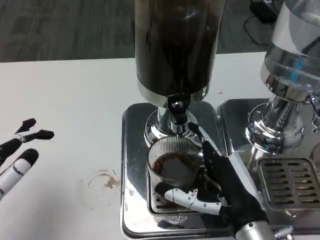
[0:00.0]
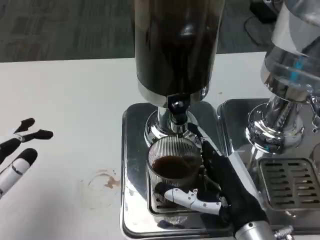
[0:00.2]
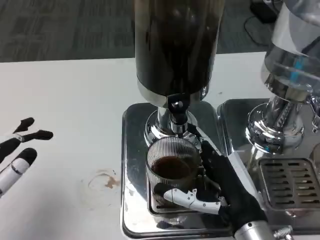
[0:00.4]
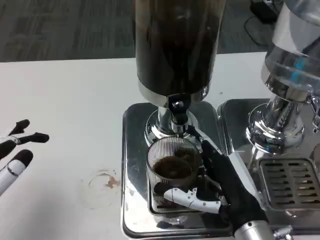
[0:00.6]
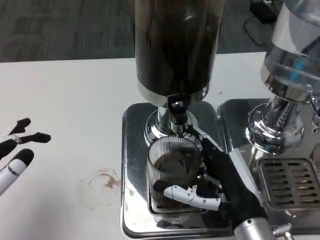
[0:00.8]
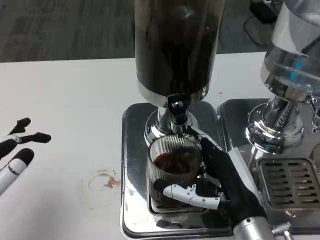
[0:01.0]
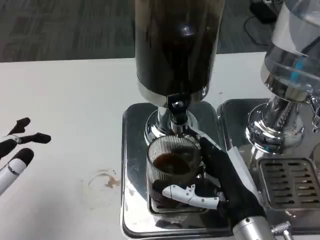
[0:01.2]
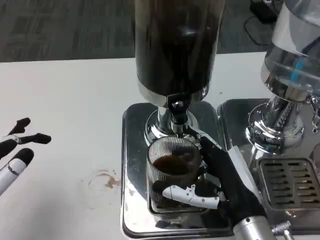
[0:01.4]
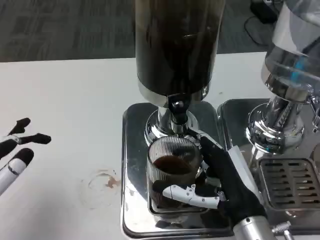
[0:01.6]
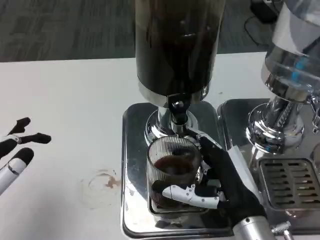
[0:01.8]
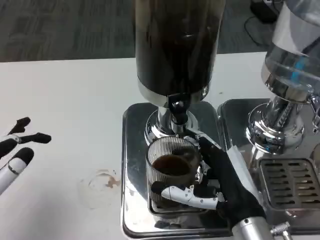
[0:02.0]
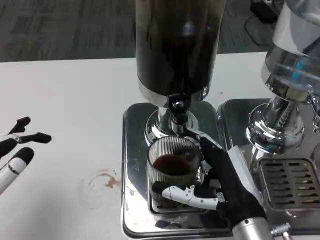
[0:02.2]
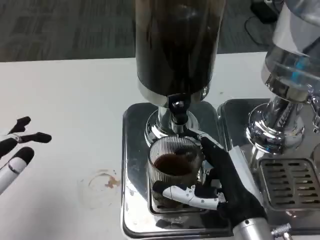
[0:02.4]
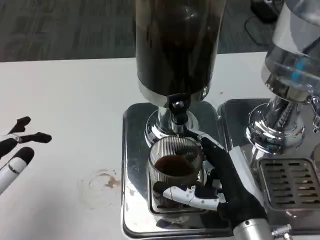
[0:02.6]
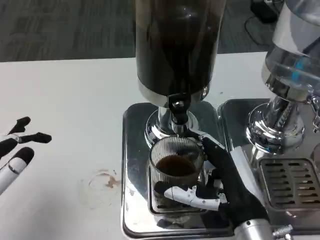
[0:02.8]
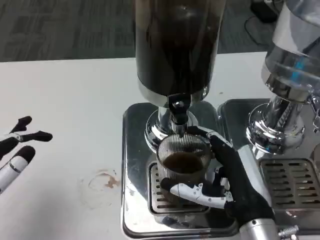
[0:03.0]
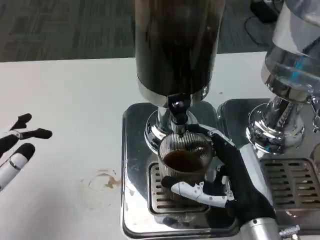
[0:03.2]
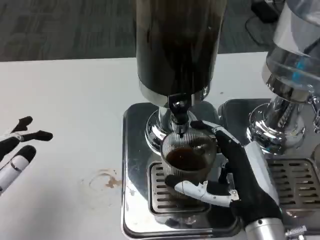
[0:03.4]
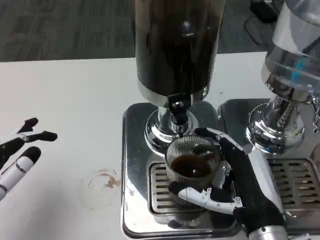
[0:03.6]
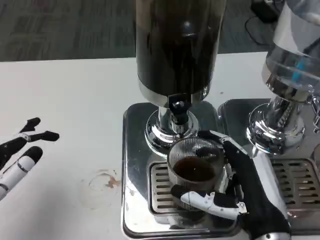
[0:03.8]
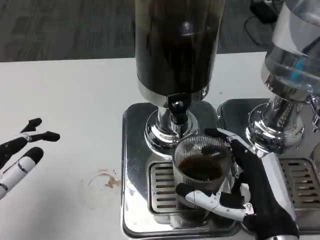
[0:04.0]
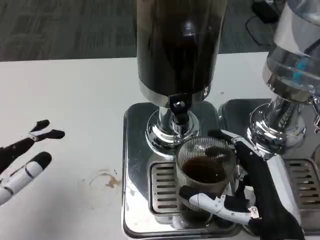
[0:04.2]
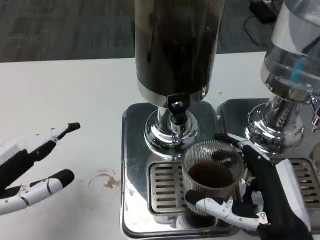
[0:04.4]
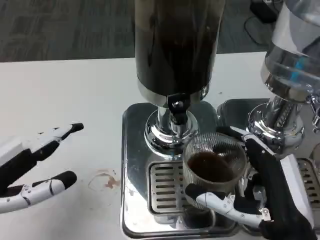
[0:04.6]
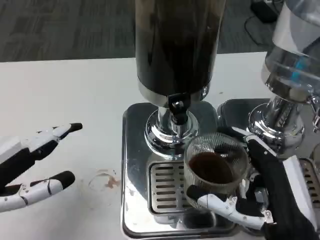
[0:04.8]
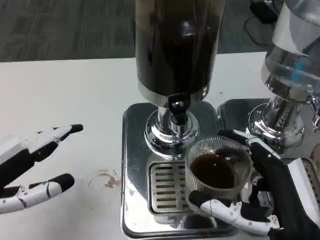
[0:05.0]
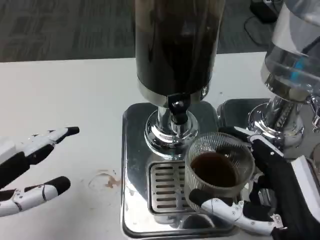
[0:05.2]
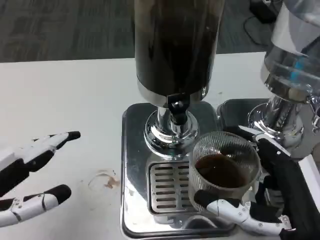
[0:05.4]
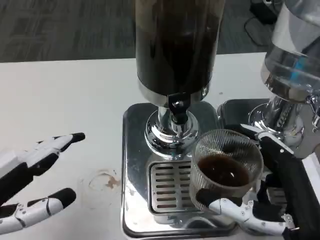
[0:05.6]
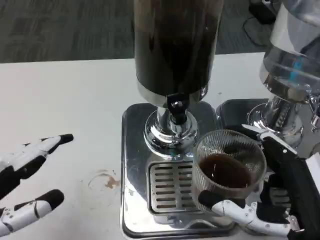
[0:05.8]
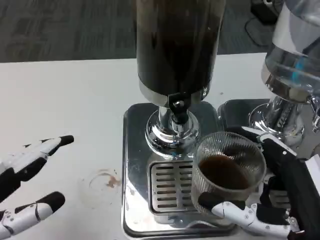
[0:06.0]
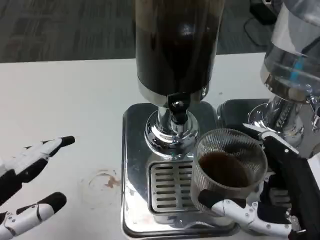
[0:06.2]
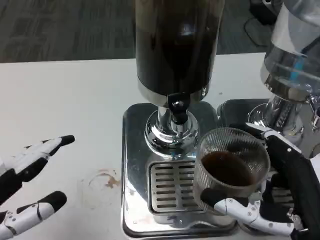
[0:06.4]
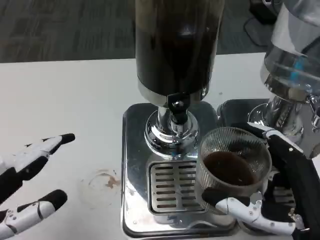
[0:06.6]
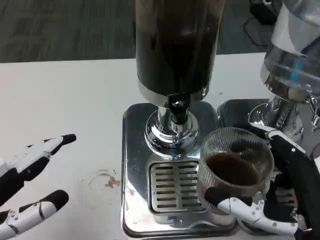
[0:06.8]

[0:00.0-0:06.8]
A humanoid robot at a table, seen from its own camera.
Task of the whole recording: Grasp the cup under the faucet to collect the drink, then remove the cup.
0:00.0 to 0:01.4: The two hands keep their place.
0:01.4 to 0:04.0: There are only small adjustments of the hands.
0:04.0 to 0:05.4: The right hand moves some 5 cm.
0:05.4 to 0:06.8: The hands stay close to where they were, moving slightly.

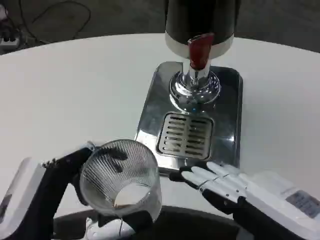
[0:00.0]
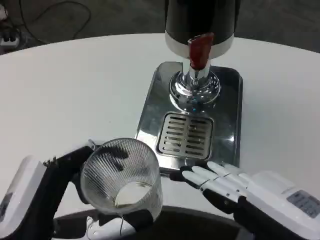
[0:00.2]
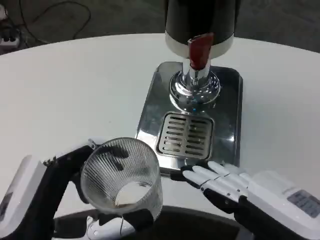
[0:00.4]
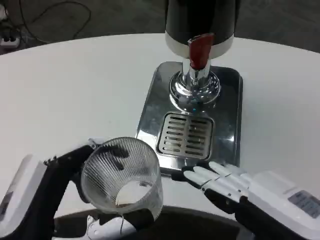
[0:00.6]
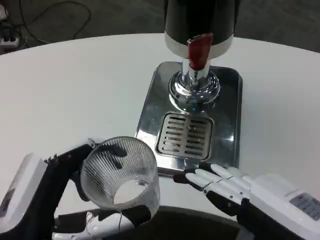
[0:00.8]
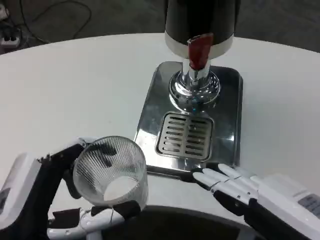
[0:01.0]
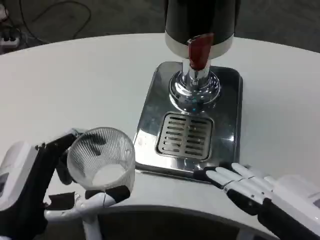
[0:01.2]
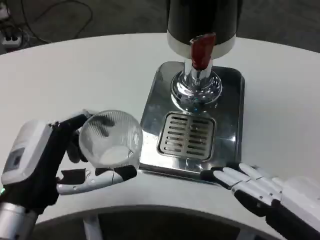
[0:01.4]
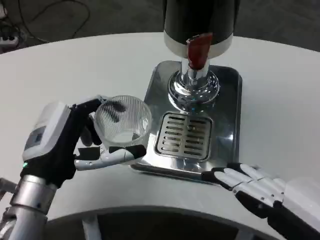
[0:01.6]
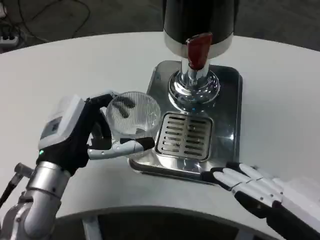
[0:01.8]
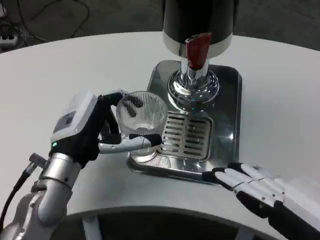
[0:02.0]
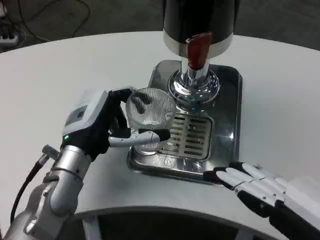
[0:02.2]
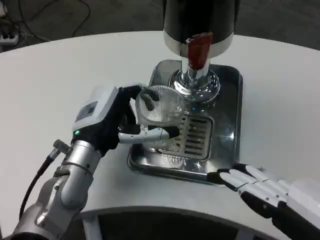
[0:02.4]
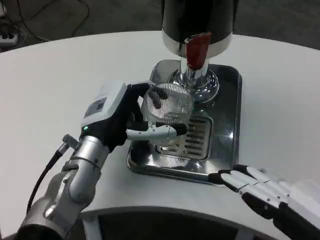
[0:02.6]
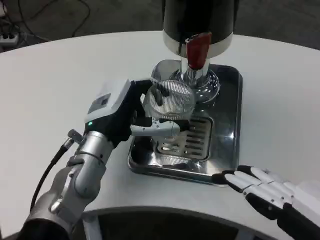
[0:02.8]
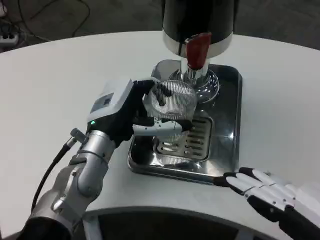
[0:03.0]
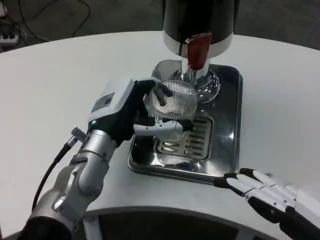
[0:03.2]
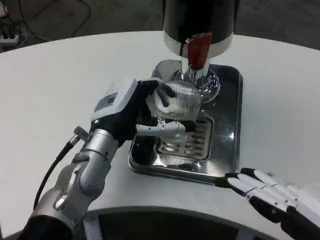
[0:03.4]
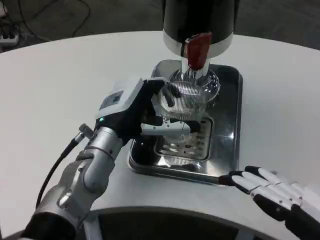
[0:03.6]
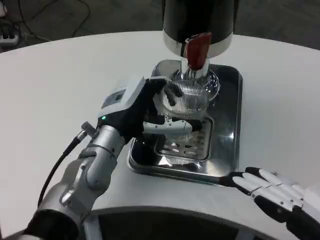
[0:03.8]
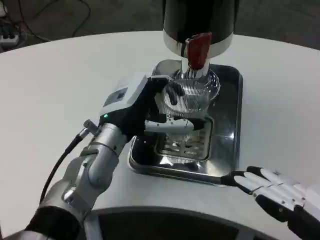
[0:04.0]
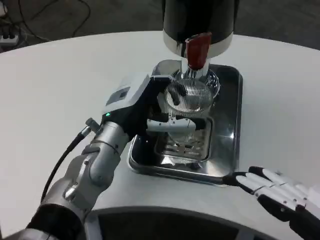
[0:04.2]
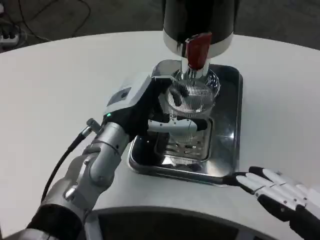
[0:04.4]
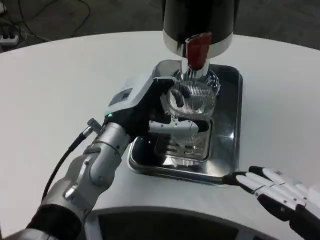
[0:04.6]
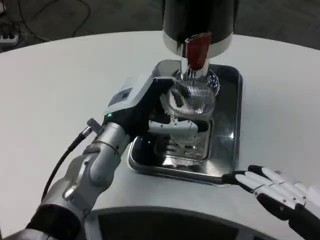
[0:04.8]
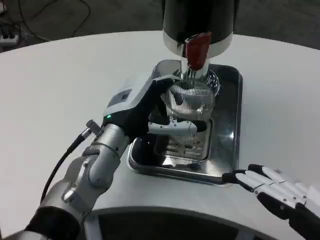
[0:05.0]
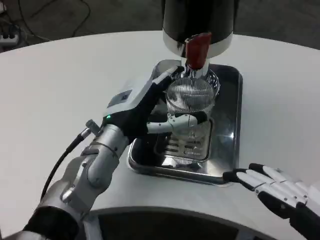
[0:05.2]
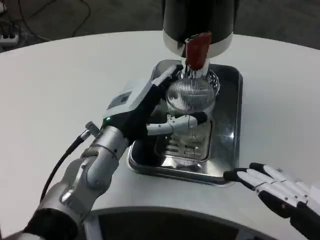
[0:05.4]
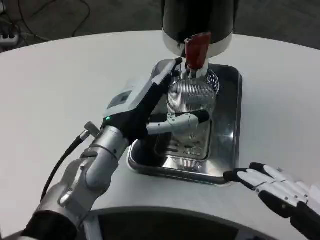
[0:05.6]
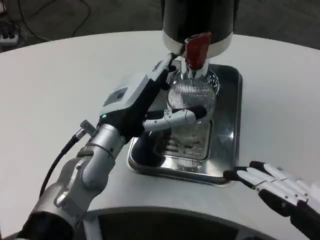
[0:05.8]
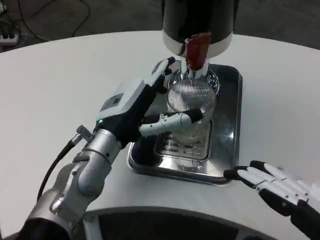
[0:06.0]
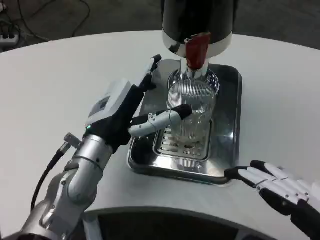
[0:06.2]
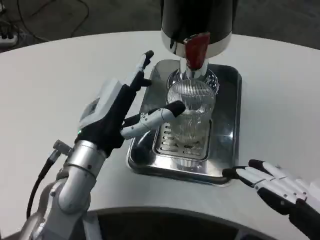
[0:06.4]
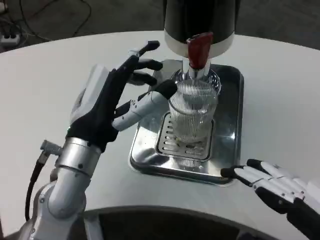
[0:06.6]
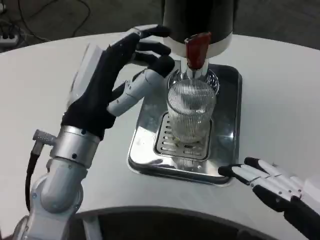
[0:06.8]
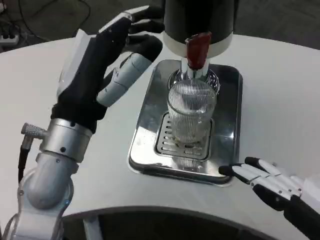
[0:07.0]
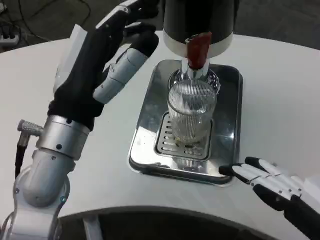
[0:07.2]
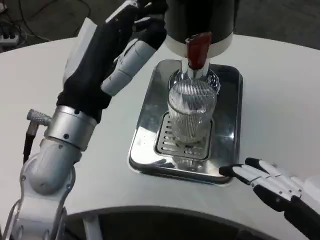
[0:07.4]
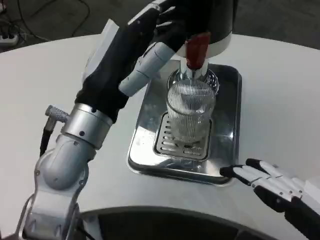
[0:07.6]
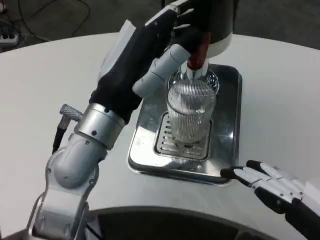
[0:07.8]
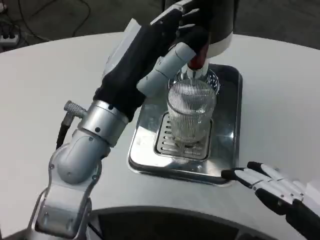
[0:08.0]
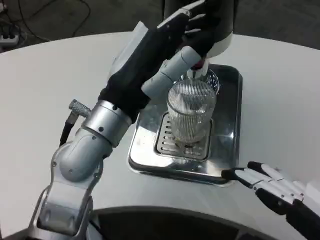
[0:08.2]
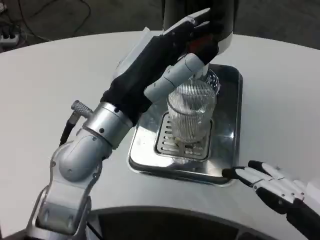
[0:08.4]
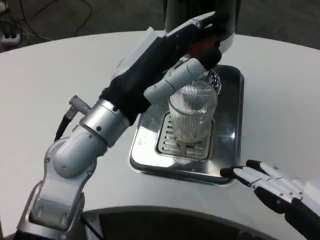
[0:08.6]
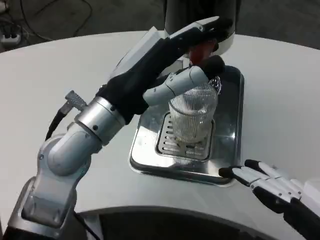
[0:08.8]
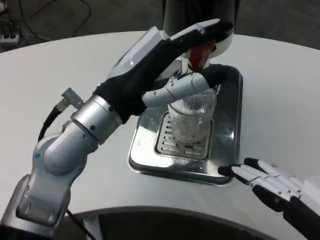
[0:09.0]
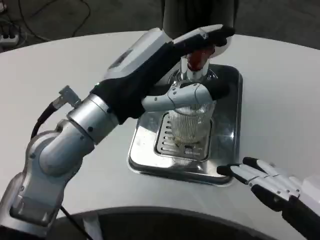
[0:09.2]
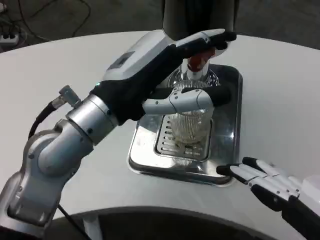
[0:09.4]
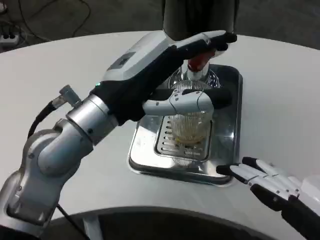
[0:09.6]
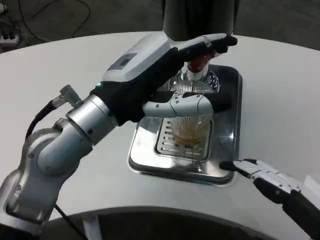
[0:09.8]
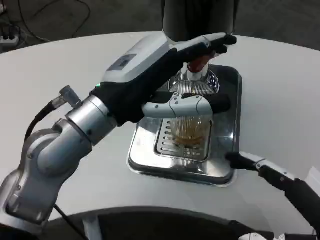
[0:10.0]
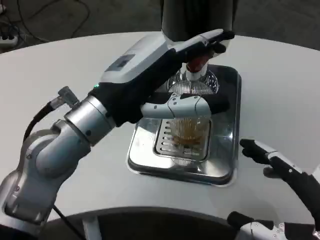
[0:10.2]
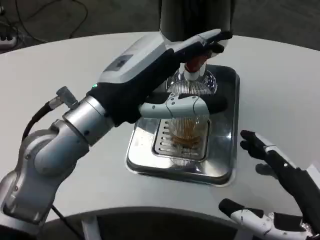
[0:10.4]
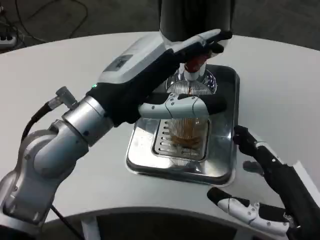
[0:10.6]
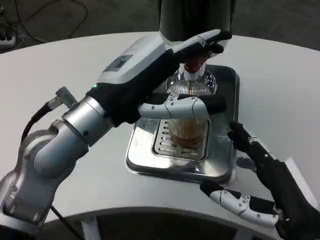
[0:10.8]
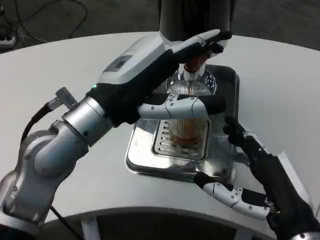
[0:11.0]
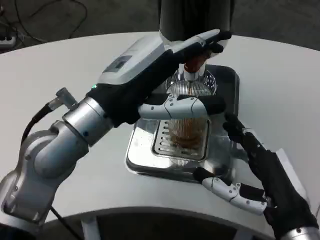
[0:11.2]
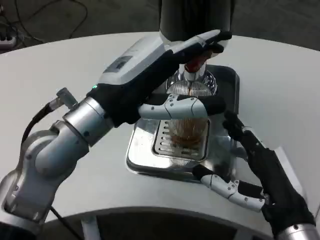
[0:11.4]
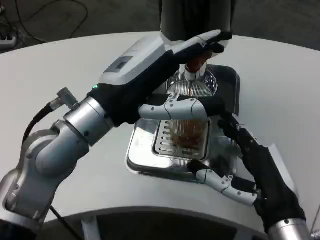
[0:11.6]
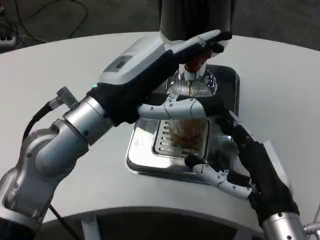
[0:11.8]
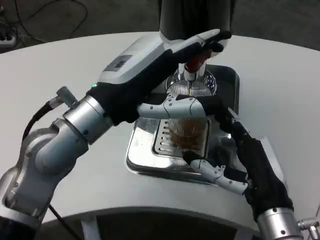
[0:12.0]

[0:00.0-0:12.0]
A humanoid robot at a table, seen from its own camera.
Task of the whole recording: Grasp the cup under the faucet to collect the drink, then remove the cup.
0:00.0 to 0:01.6: The left hand heads forward, covering some 15 cm.
0:01.6 to 0:03.0: The left hand is displaced forward and to the right by roughly 10 cm.
0:03.0 to 0:06.0: The hands stay close to where they were, moving slightly.
0:06.0 to 0:07.6: The left hand moves upward and backward, some 10 cm.
0:09.0 to 0:10.4: The right hand moves downward, approximately 5 cm.
0:10.4 to 0:12.0: The right hand heads forward and to the left, covering roughly 10 cm.

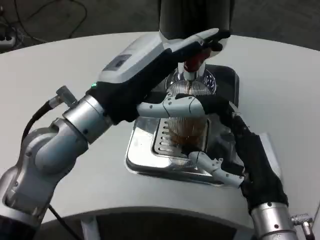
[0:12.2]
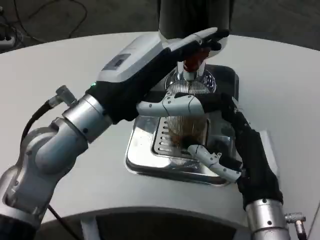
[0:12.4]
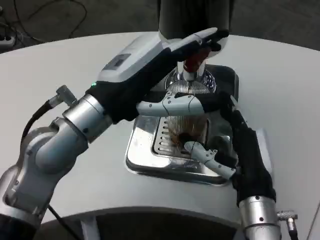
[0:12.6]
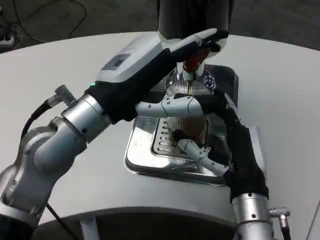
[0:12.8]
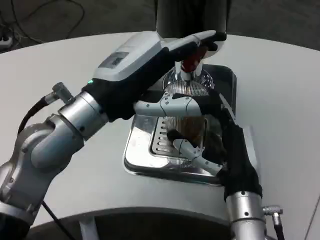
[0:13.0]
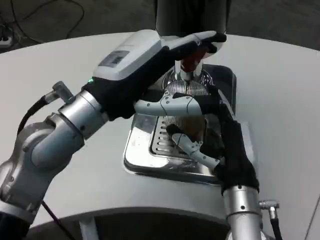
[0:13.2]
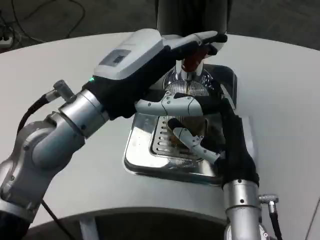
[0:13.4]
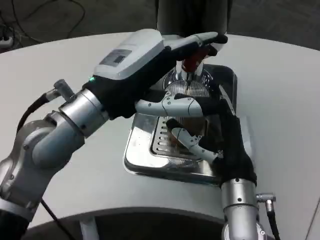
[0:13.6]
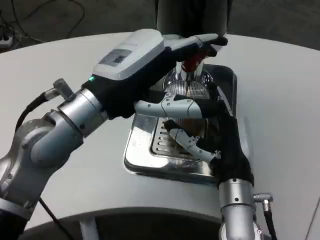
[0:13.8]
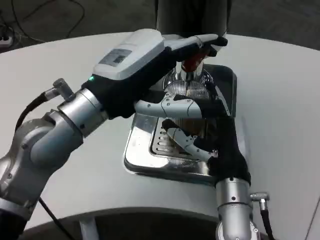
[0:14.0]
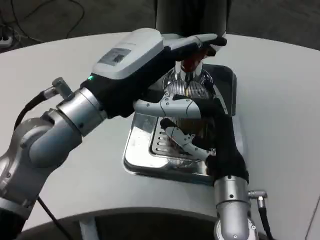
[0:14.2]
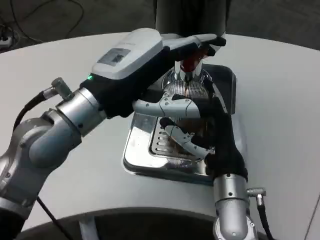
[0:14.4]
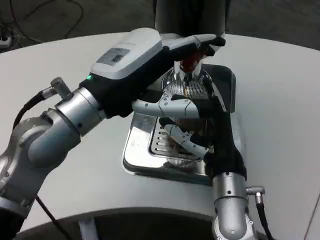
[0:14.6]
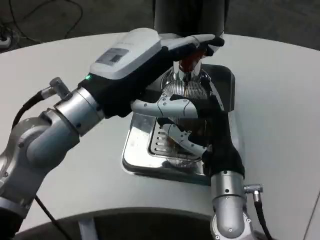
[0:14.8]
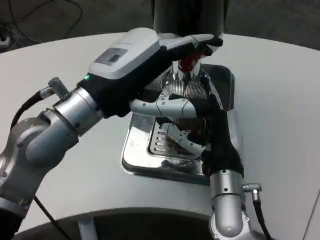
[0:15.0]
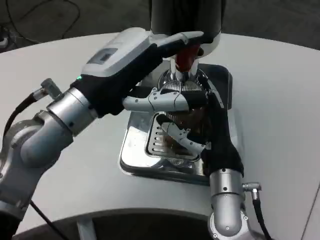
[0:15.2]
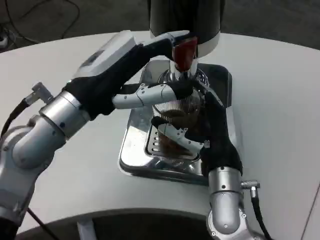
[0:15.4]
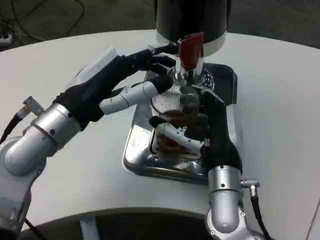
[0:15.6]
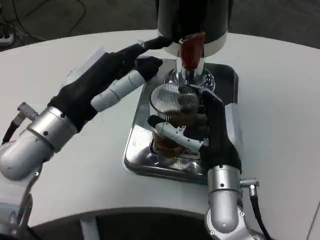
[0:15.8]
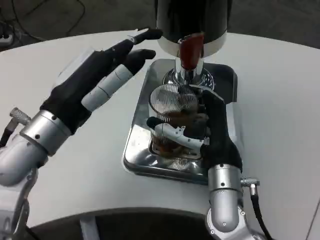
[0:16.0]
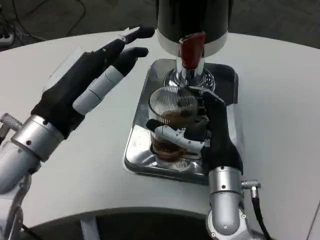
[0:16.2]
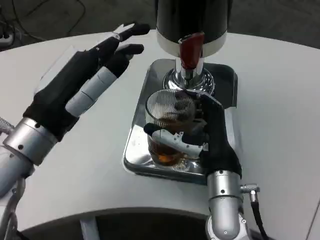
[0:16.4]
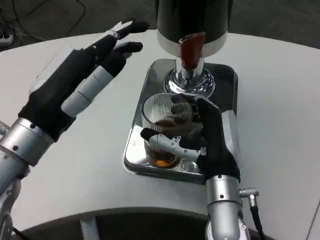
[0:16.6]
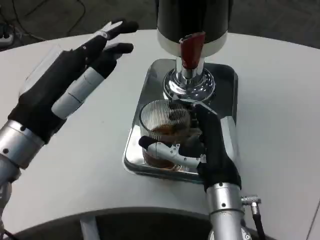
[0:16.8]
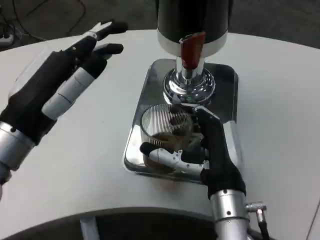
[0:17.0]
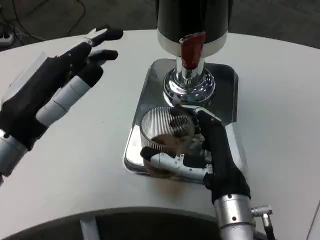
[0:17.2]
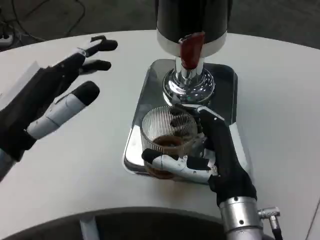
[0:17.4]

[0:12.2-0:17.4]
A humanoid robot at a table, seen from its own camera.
Task of the whole recording: Grasp the cup under the faucet to collect the drink, then remove the cup.
0:12.2 to 0:14.0: The right hand goes approximately 5 cm to the left.
0:15.6 to 0:17.4: The left hand moves backward and to the left, approximately 10 cm; the right hand moves backward, about 5 cm.
